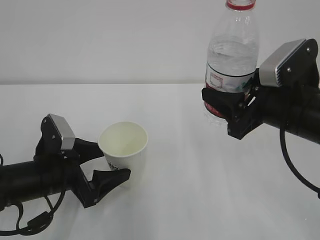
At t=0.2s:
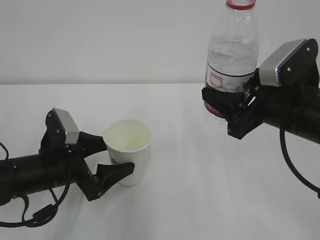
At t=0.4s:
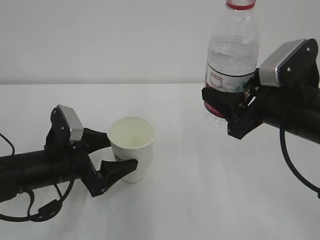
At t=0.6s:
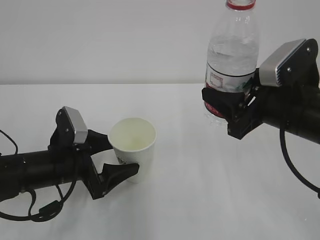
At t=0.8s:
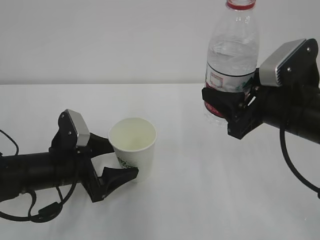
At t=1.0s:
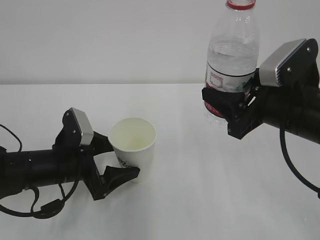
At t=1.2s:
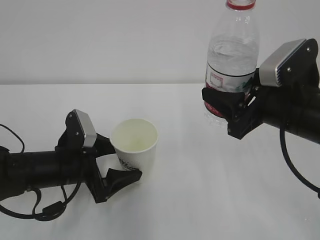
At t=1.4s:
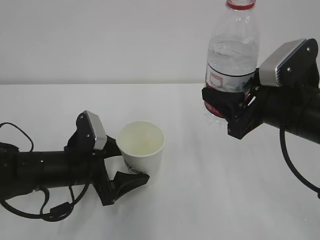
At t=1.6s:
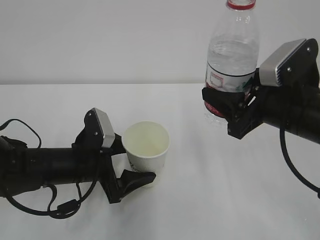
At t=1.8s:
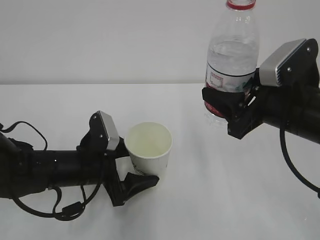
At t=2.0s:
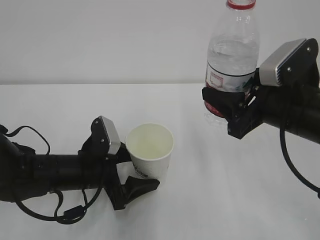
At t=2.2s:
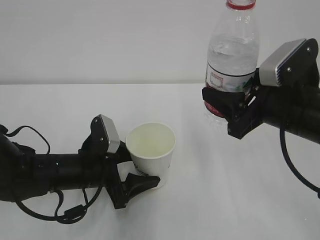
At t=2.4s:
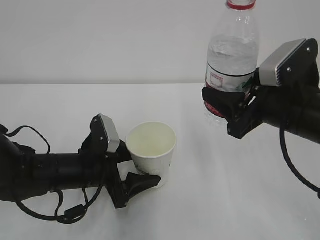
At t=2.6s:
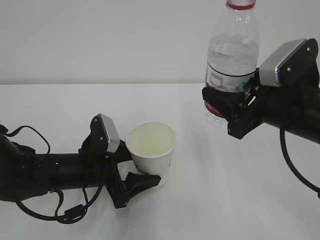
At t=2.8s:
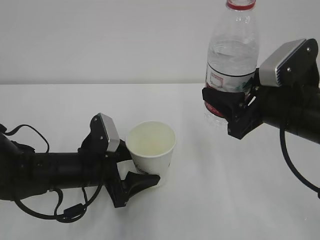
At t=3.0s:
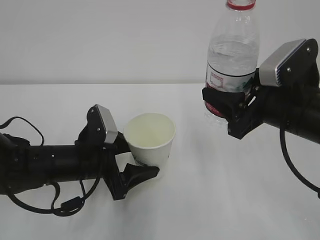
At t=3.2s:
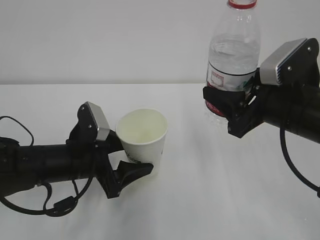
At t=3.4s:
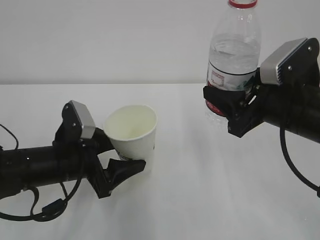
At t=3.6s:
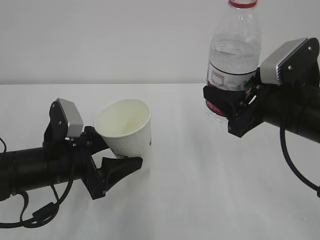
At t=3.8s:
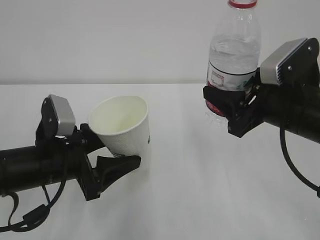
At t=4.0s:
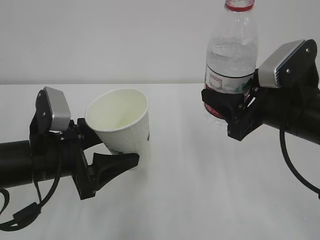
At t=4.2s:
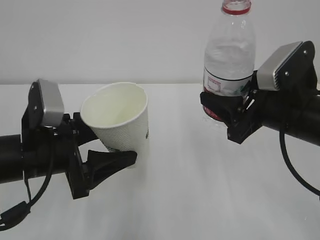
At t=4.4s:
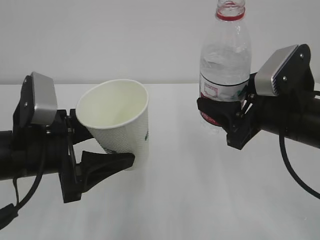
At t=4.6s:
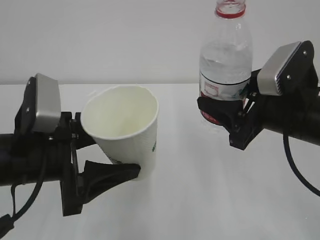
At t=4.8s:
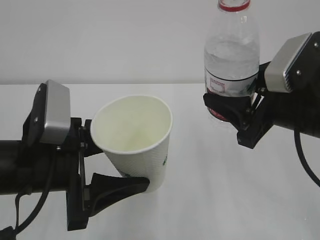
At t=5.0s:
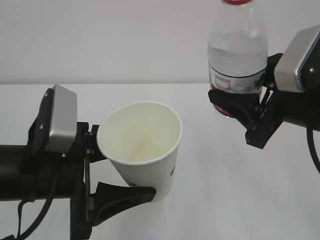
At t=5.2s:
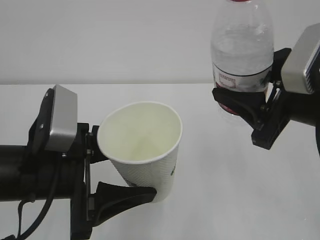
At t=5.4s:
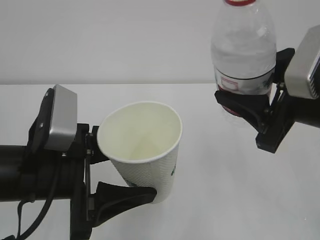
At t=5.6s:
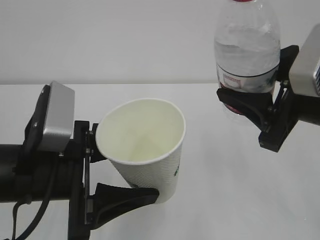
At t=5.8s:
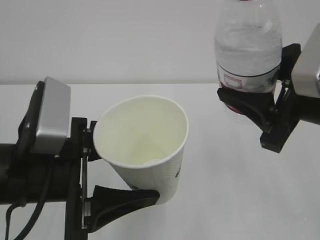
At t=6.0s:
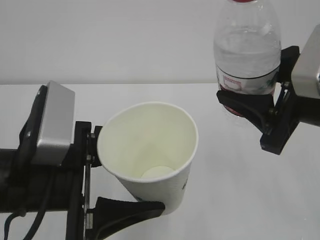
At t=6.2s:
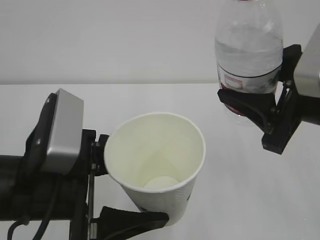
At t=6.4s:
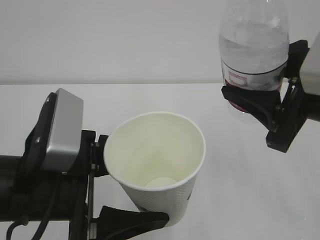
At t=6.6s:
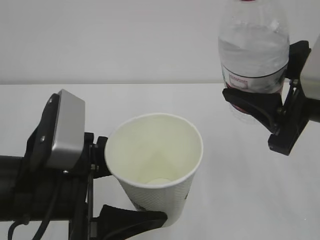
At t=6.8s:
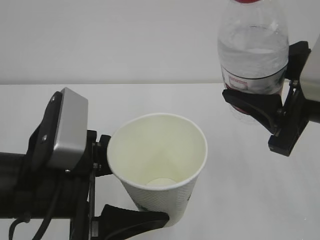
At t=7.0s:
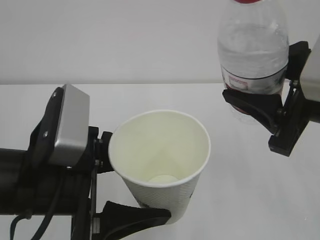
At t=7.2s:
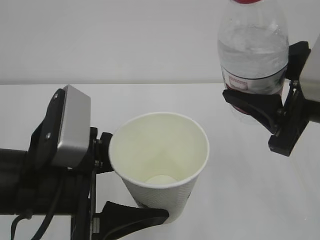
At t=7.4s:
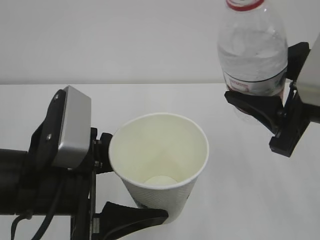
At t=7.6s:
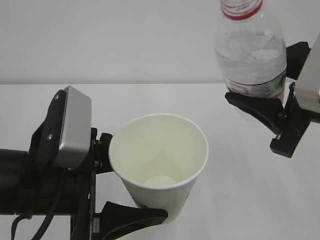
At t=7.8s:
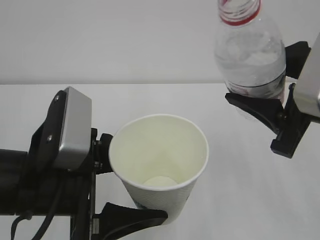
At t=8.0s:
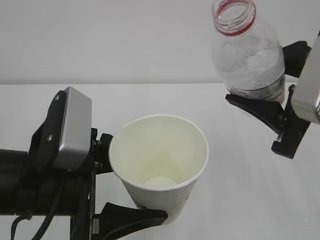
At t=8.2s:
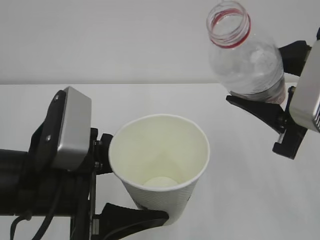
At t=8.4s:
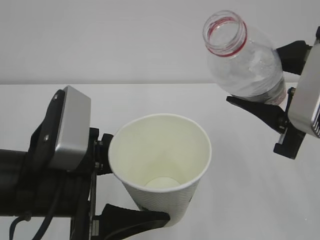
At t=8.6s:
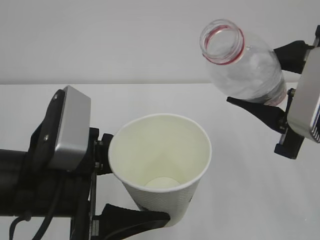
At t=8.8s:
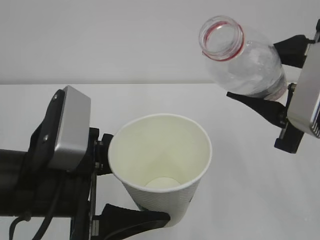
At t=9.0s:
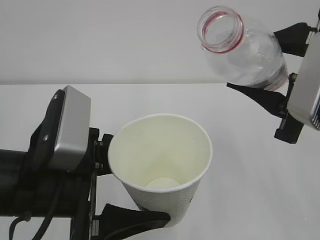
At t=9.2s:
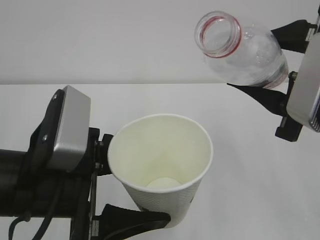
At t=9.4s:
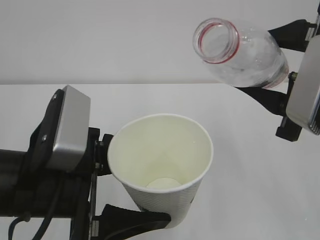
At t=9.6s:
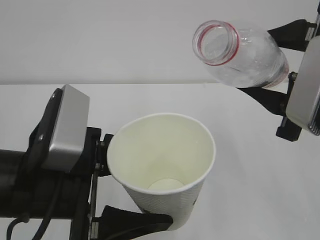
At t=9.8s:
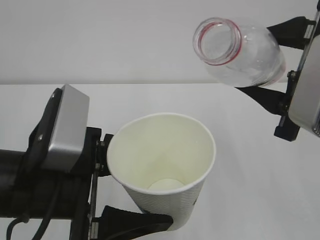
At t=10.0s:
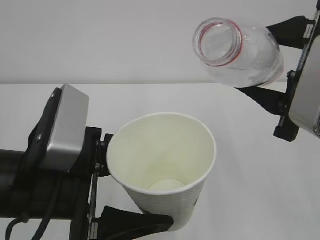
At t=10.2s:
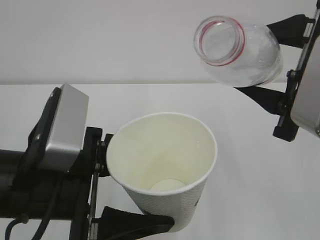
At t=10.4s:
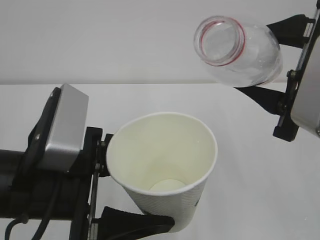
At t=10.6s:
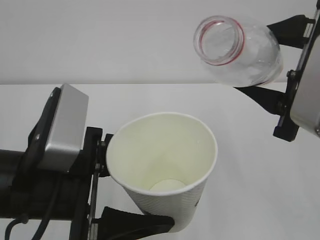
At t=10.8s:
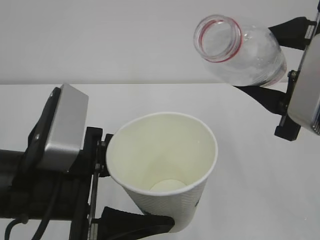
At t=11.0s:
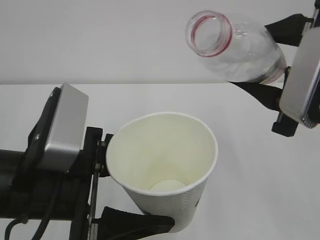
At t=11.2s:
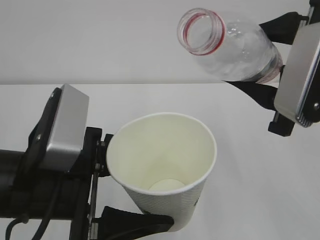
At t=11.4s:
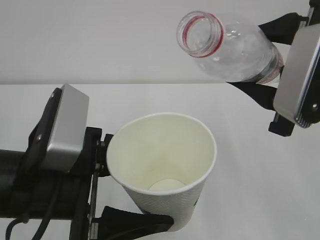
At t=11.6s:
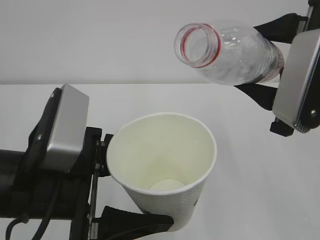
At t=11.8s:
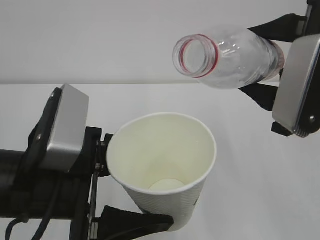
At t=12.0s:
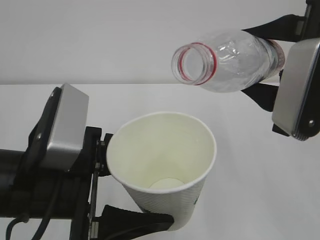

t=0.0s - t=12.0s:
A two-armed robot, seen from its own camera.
t=0.0s - t=1.6s: The left gripper changes place by roughly 5 cm.
t=1.6s - t=3.0s: The left gripper closes.
t=3.0s - t=4.4s: The left gripper is displaced upward and backward by approximately 10 cm.
t=4.4s - t=6.0s: The right gripper travels upward by roughly 5 cm; the left gripper goes roughly 5 cm backward.
t=6.0s - t=7.6s: The grippers make only small movements.
t=7.6s - t=9.0s: The grippers stay close to where they were, moving slightly.
t=9.0s - t=12.0s: The grippers move only a little.

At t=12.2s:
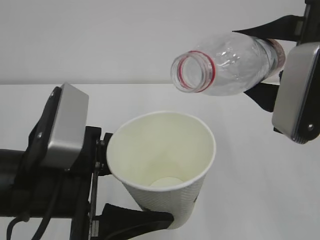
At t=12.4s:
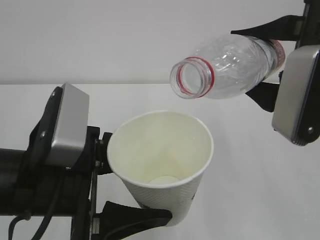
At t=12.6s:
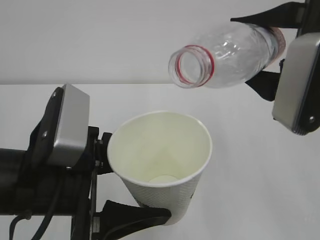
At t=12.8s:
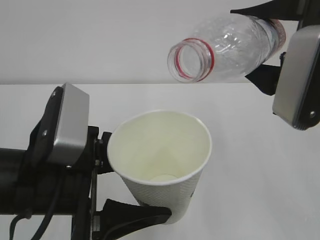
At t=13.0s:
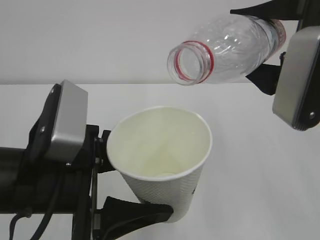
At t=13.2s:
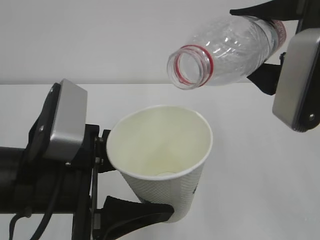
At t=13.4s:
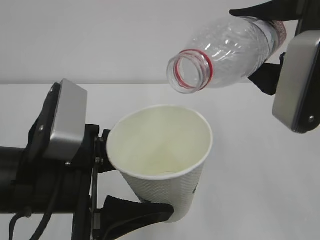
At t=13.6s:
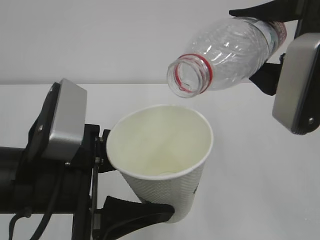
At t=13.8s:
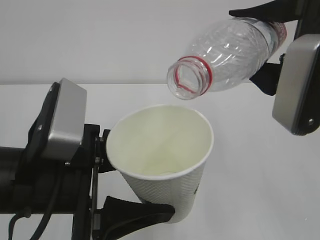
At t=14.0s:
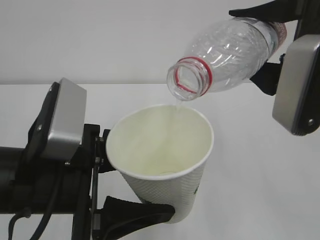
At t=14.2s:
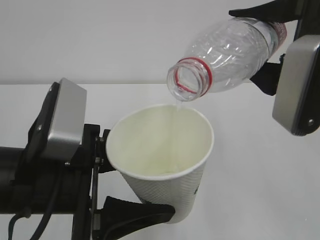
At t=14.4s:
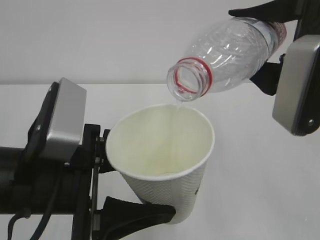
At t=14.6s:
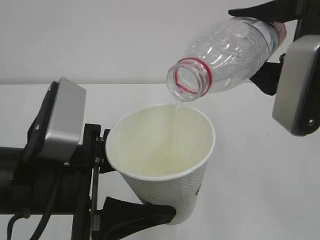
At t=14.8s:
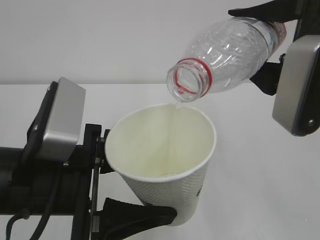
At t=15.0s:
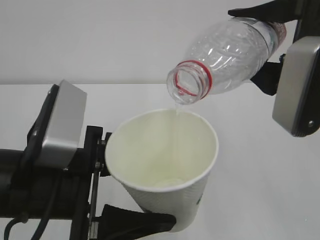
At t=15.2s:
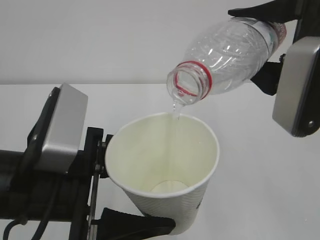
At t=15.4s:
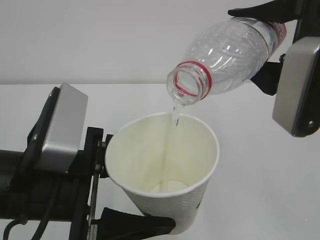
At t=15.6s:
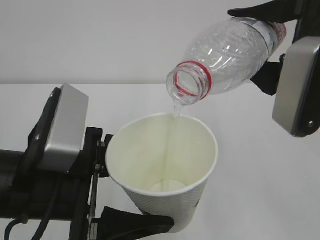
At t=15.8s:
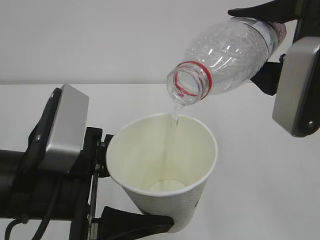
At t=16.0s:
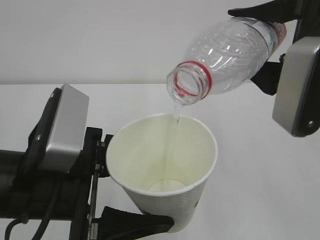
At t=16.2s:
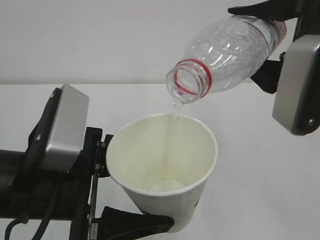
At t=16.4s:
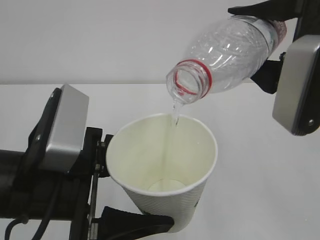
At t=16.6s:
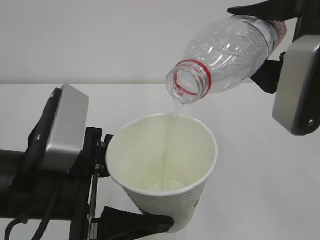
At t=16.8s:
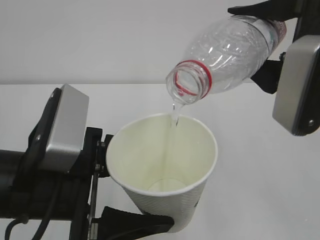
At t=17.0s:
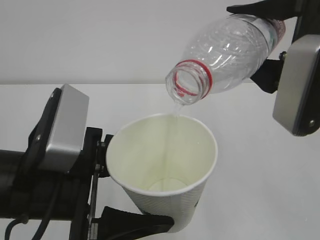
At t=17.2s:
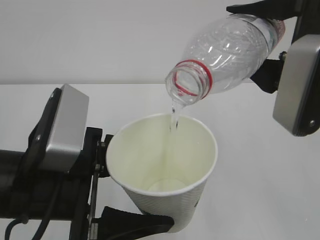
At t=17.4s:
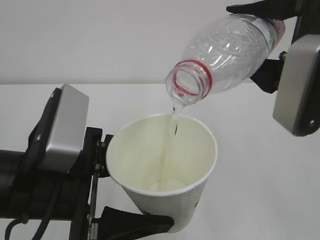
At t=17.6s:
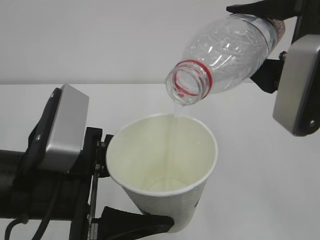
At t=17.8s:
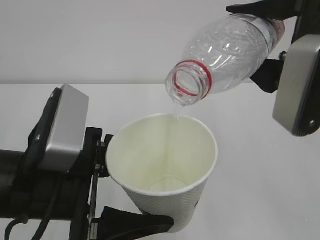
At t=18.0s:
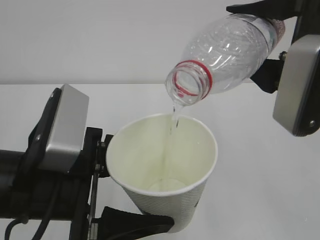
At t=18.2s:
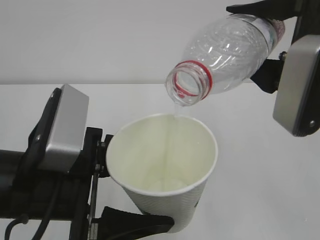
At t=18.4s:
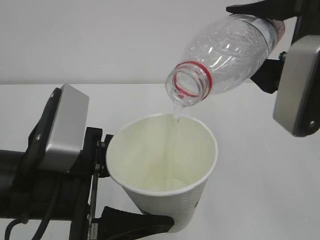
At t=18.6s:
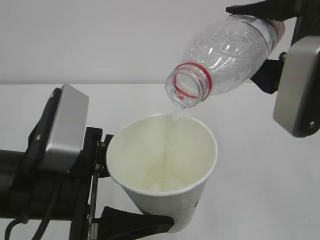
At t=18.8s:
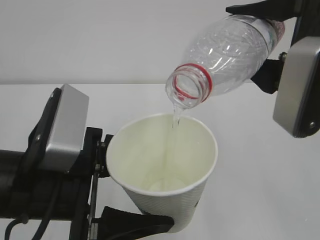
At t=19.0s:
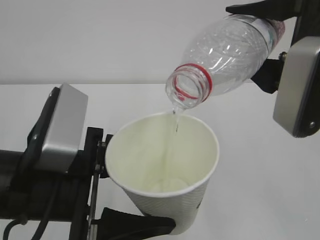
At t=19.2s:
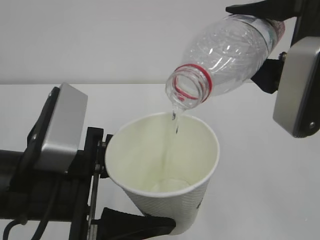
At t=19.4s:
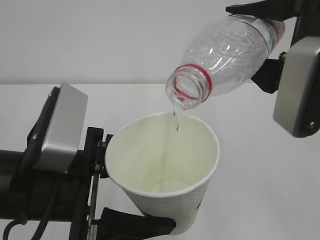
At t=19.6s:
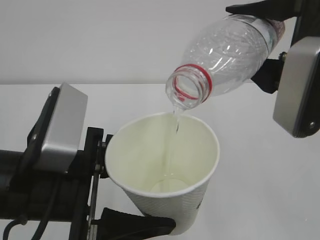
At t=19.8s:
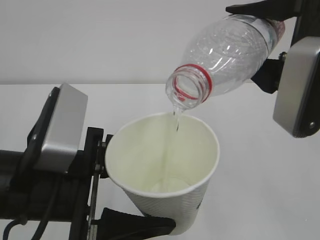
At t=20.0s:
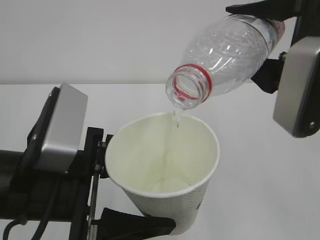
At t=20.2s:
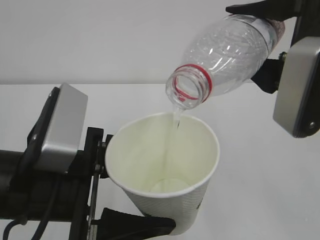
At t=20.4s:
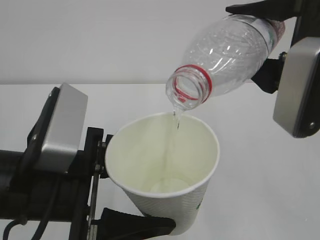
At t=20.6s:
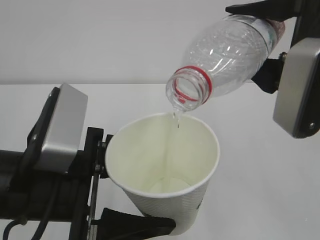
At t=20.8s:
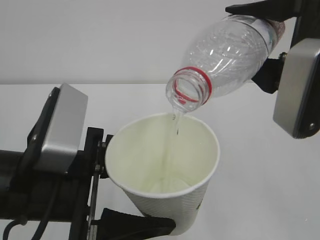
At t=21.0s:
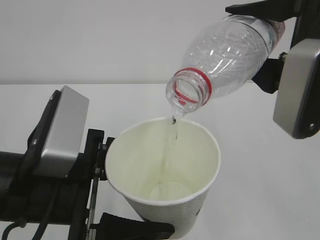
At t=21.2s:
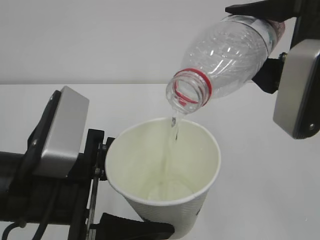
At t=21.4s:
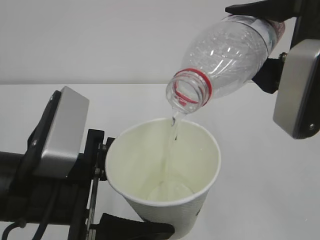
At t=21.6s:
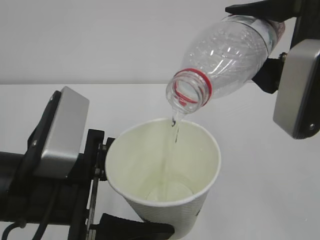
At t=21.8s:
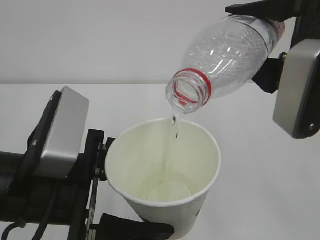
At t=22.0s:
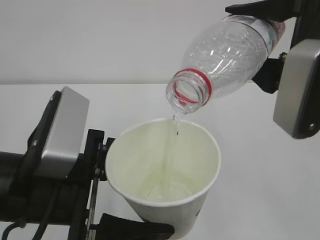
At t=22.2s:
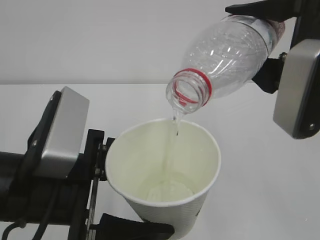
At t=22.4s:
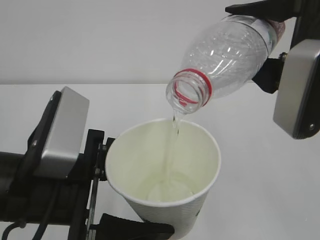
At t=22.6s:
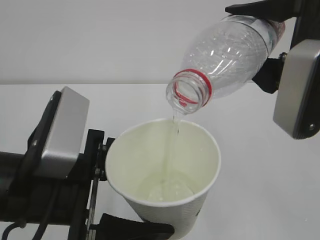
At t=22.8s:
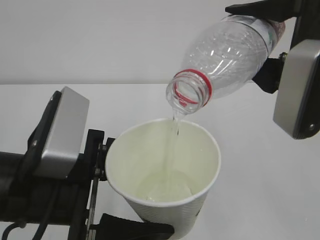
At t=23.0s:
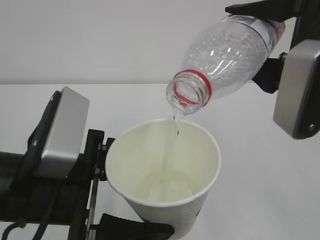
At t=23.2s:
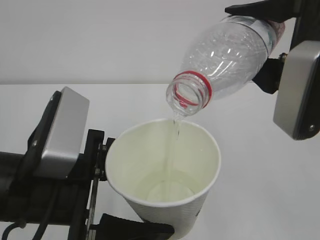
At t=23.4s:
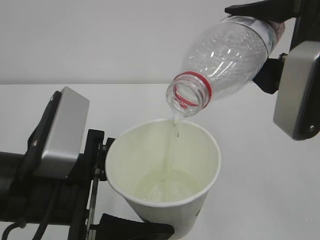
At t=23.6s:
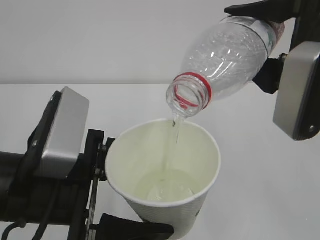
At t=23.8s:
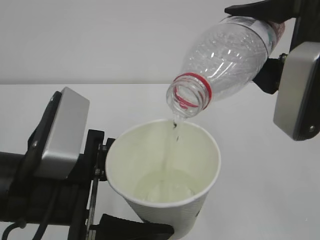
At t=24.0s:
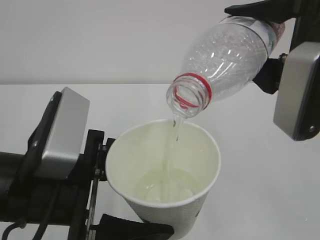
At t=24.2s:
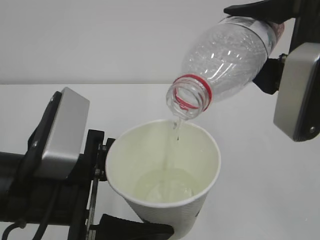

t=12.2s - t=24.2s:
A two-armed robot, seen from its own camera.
t=12.2s - t=13.8s: The grippers stay close to where they were, moving slightly.
t=13.8s - t=19.8s: The two grippers keep their place.
t=19.8s - t=24.2s: Neither gripper changes place.
